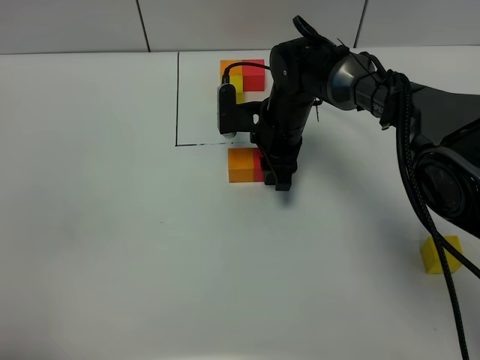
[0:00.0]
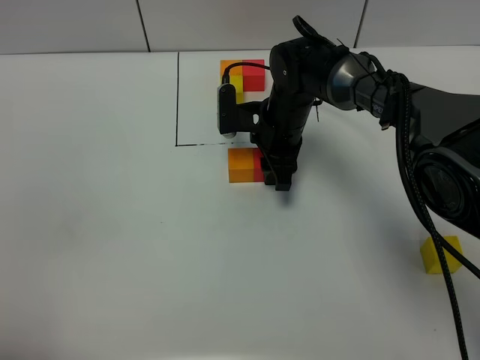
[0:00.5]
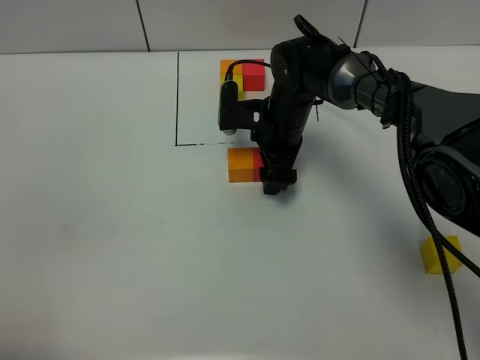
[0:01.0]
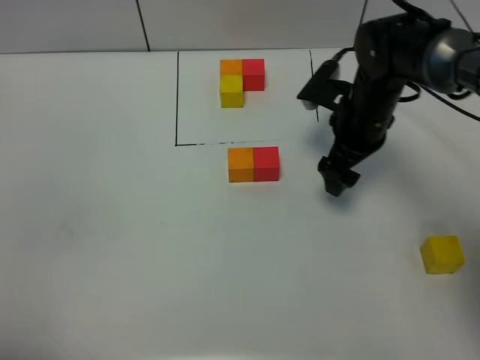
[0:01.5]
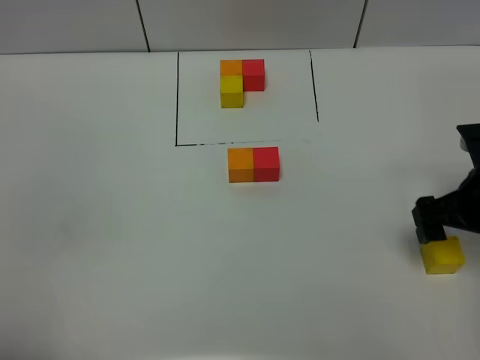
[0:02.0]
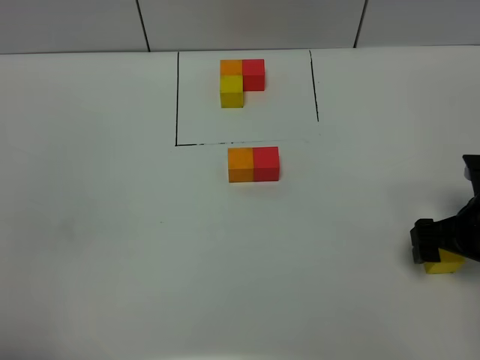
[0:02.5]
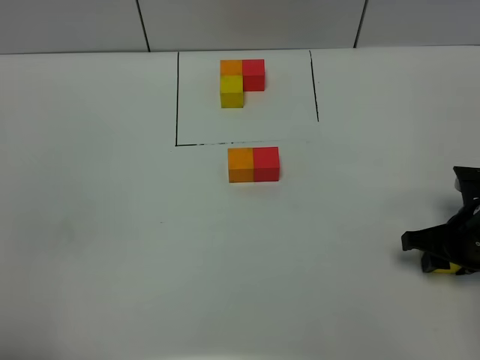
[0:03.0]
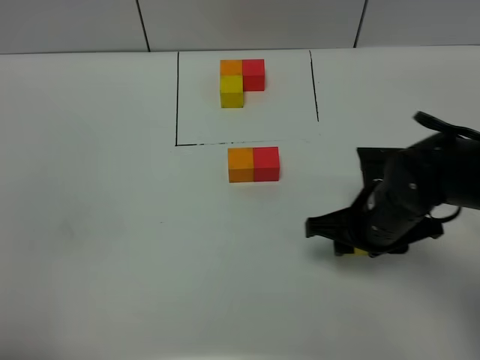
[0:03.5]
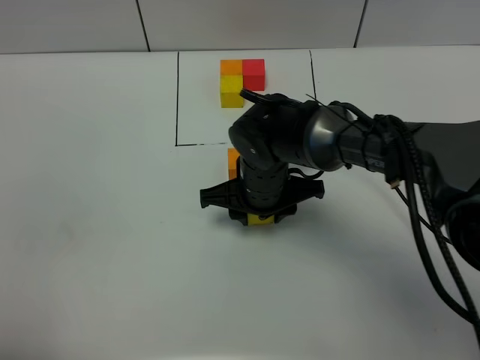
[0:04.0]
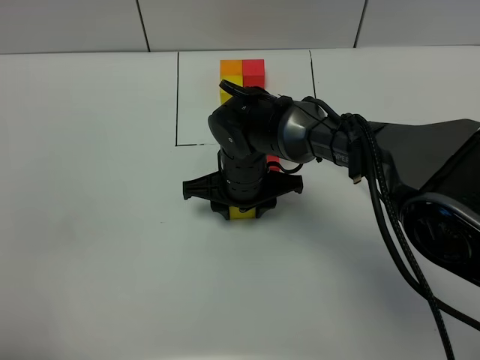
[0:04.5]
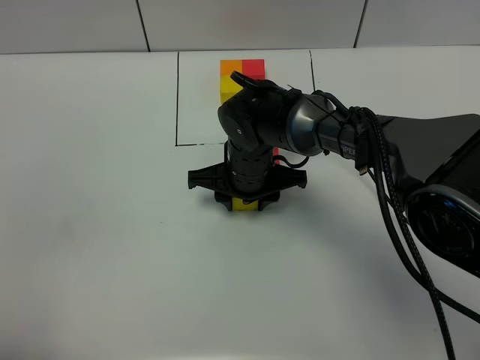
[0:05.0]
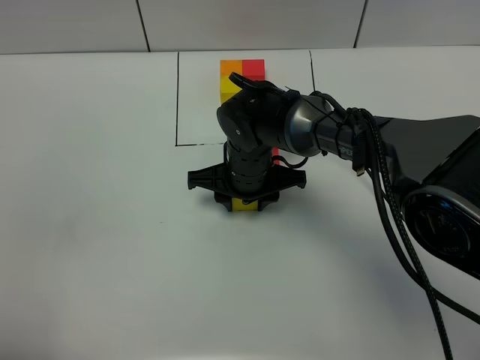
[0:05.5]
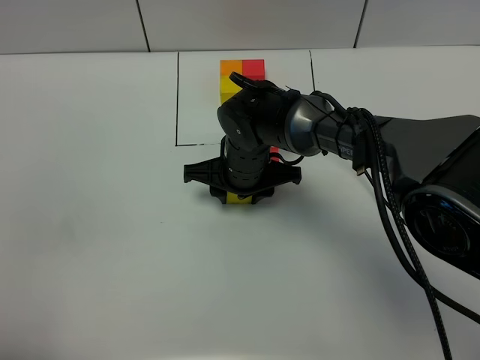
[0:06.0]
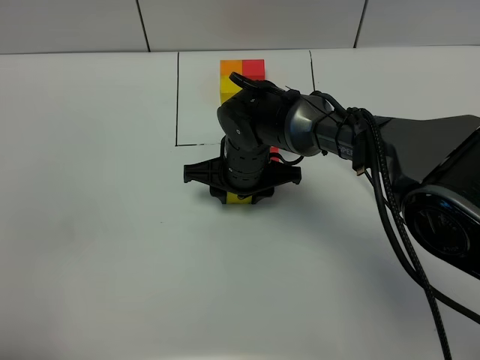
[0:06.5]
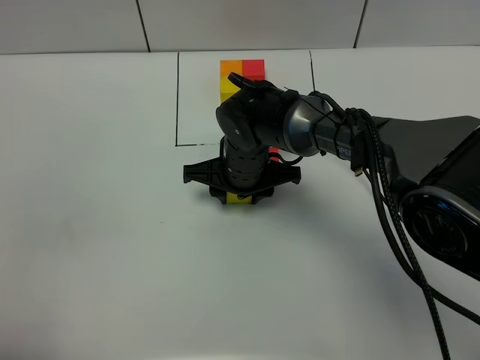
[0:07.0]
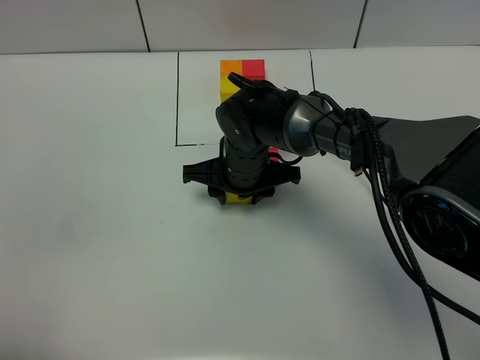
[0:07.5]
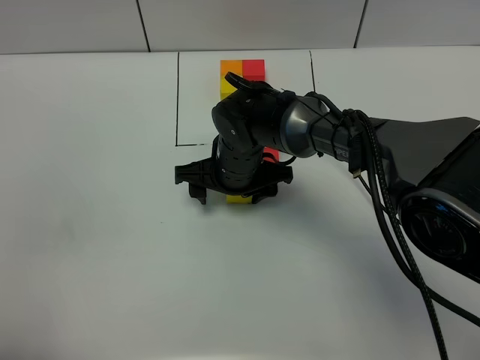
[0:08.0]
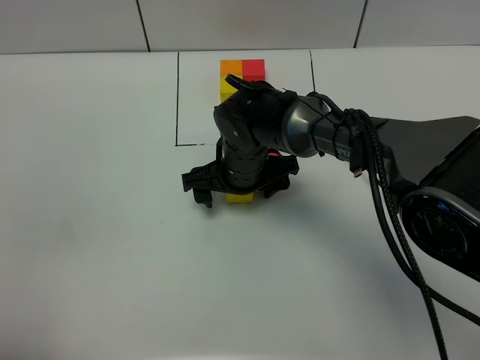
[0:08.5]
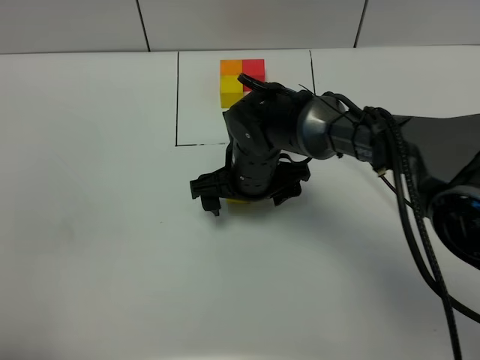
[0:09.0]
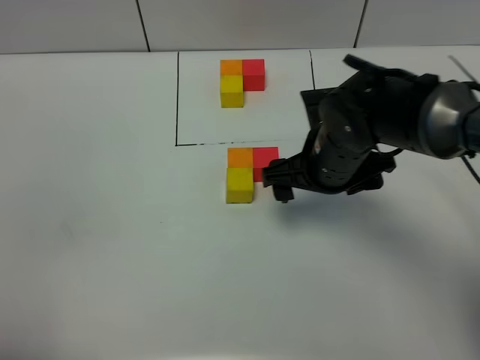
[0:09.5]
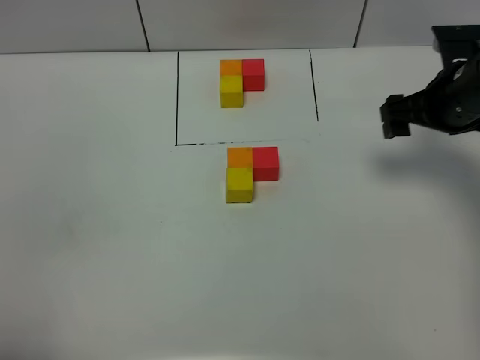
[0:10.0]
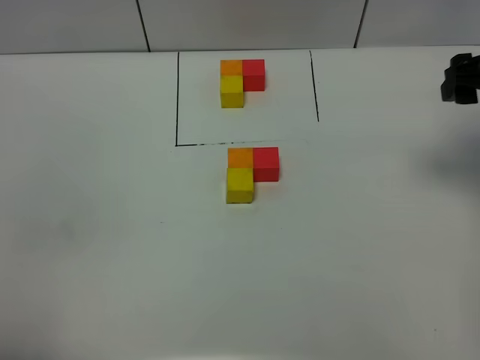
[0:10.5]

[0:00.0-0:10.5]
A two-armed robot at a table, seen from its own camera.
Task of the whole recording: According to the building block template in front, assemble the scattered blocks together.
Step, 0:01.5 to 0:07.5: Put the yellow build block on the behind of the orange build block.
0:00.0 to 0:02.0: The right gripper heads to the right and backward, covering some 30 cm, and opens up.
0:02.0 to 0:04.0: The right gripper shifts about 25 cm to the left, and closes.
0:04.0 to 0:06.5: The grippers stay close to where they were, moving slightly.
0:06.5 to 0:08.5: The right gripper opens.
0:08.5 to 0:10.5: The right gripper shifts approximately 35 cm to the right and upward.

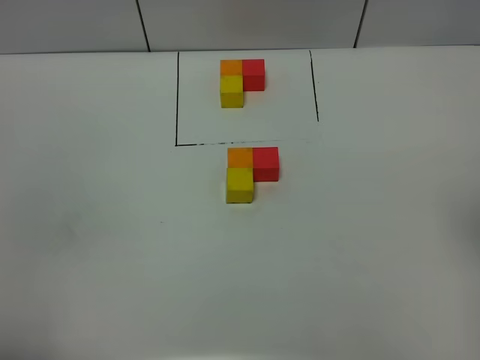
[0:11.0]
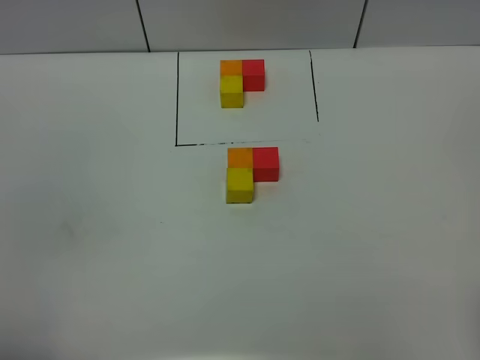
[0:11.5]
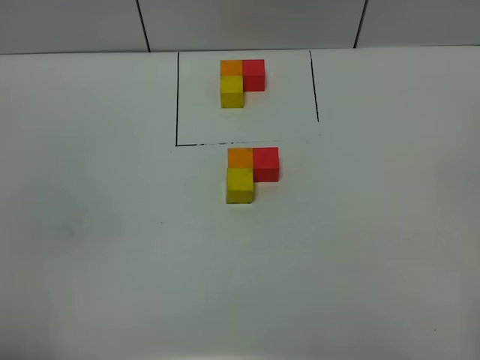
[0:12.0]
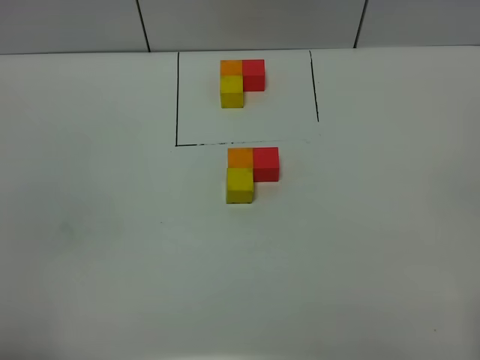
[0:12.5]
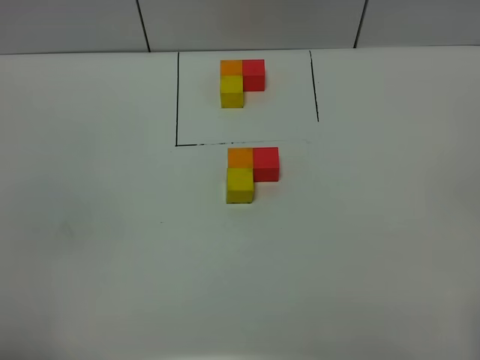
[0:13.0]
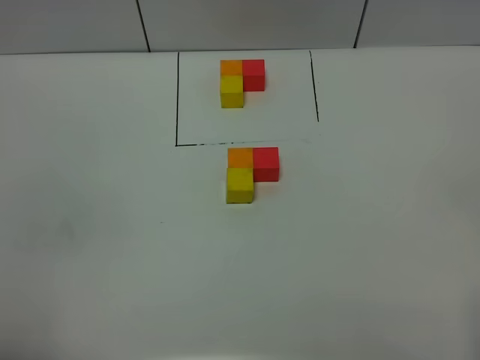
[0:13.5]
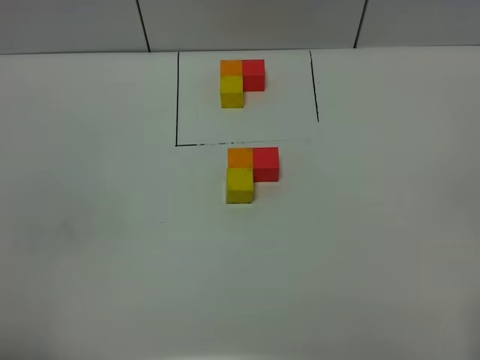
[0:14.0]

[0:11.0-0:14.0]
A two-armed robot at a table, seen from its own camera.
Task of the whole recording: According to the building block template in front, assemble the scattered blocks together.
0:12.5 to 0:14.0: The two grippers keep their place.

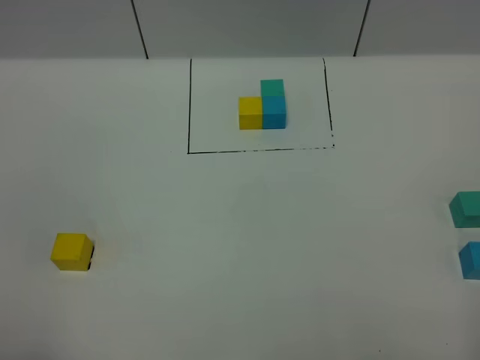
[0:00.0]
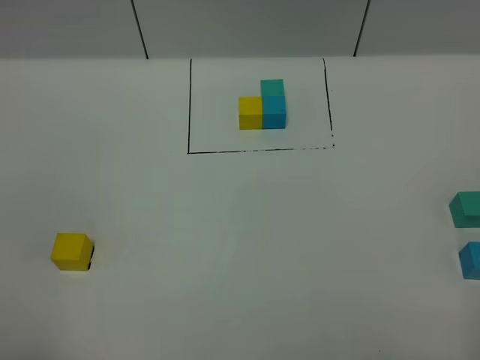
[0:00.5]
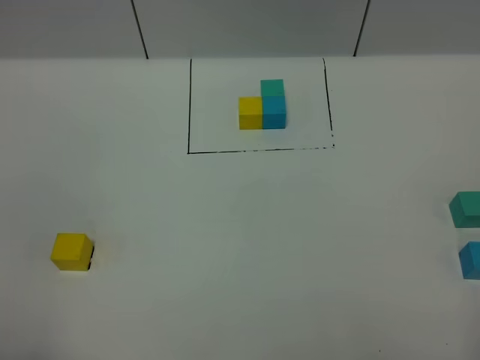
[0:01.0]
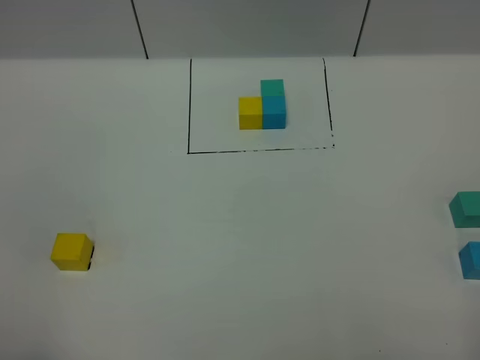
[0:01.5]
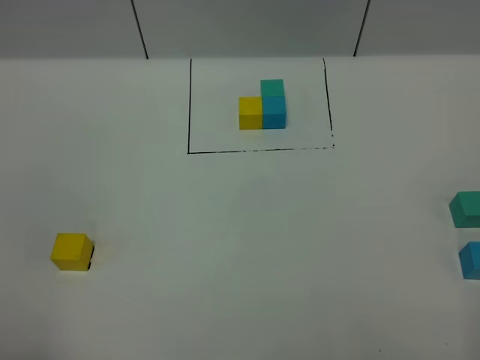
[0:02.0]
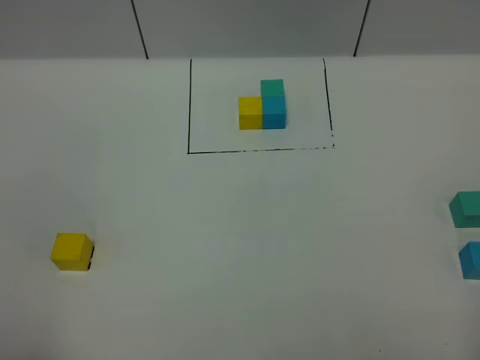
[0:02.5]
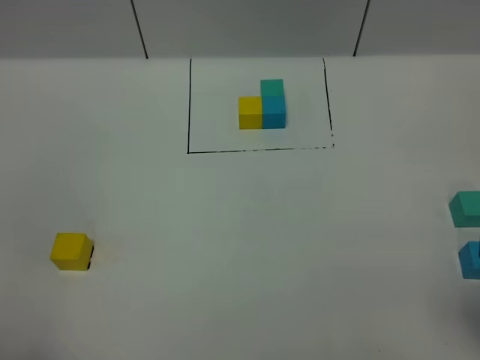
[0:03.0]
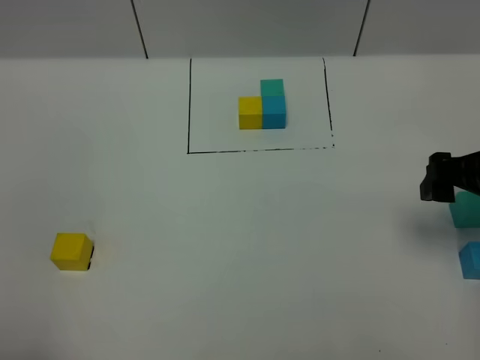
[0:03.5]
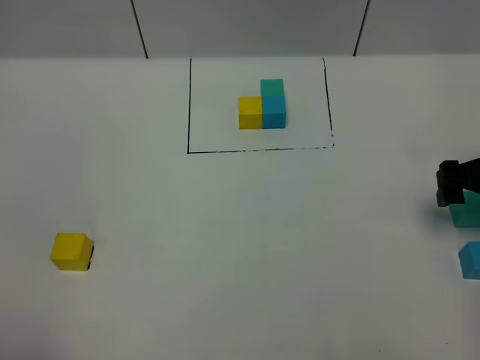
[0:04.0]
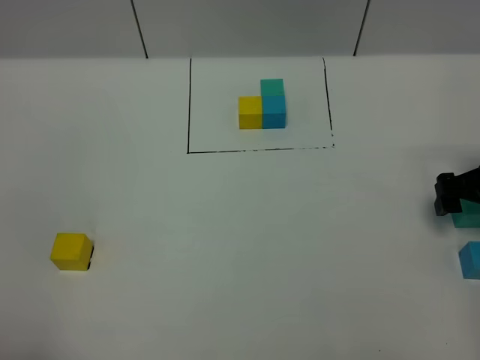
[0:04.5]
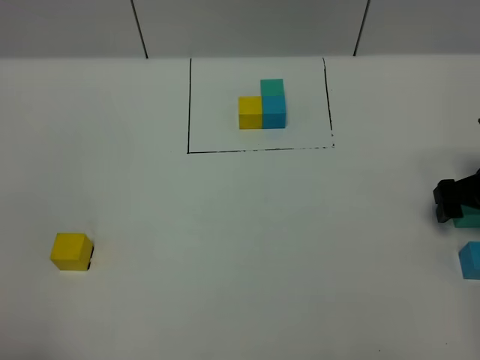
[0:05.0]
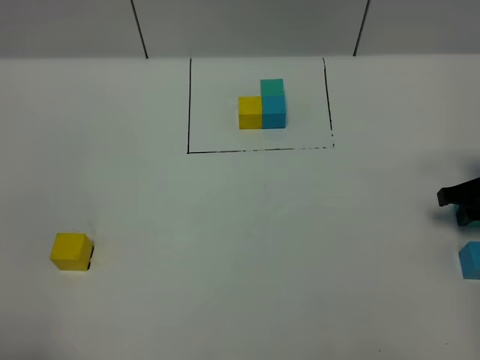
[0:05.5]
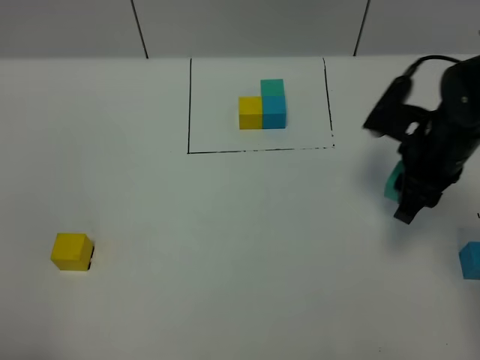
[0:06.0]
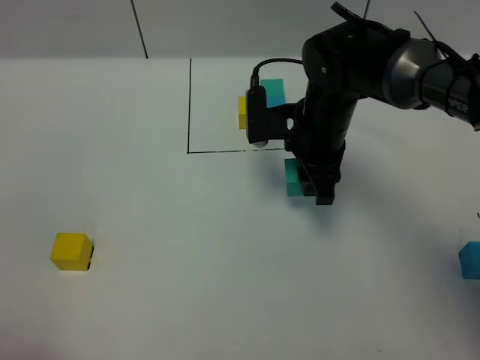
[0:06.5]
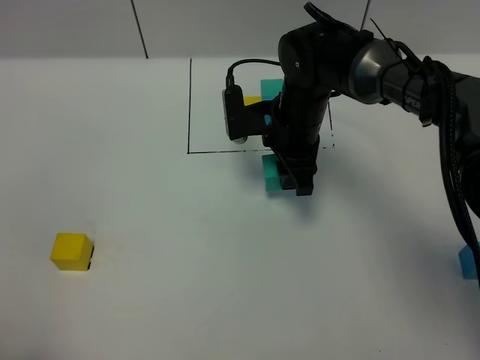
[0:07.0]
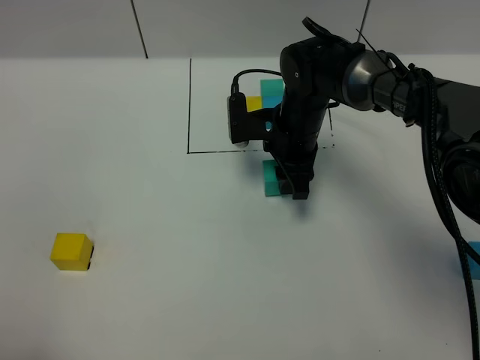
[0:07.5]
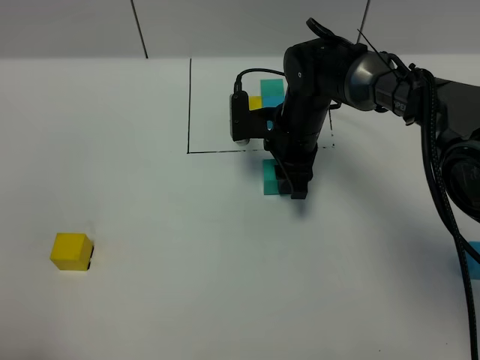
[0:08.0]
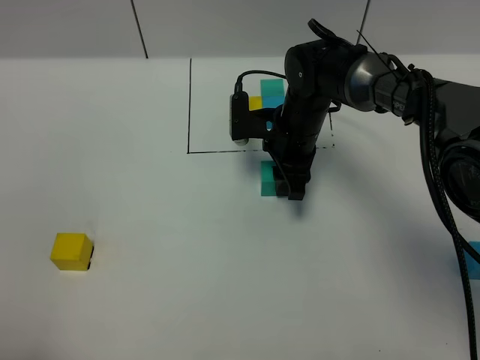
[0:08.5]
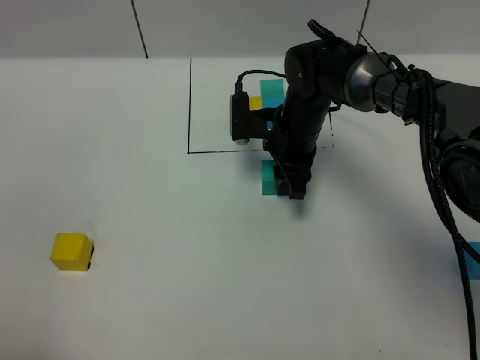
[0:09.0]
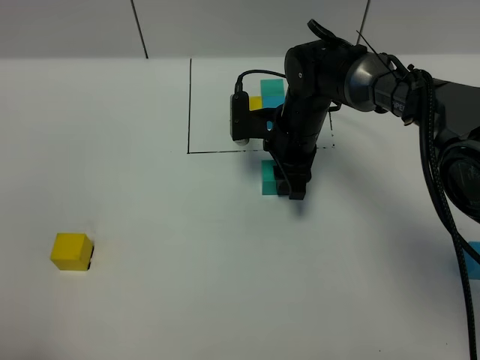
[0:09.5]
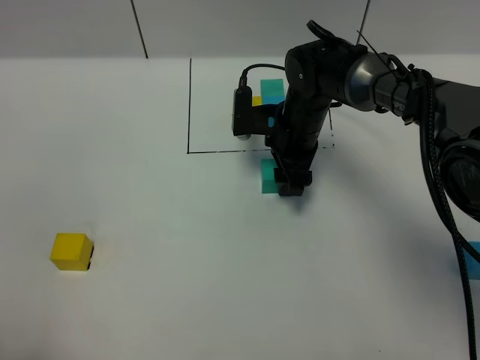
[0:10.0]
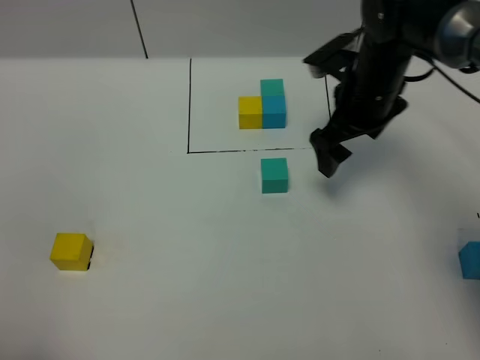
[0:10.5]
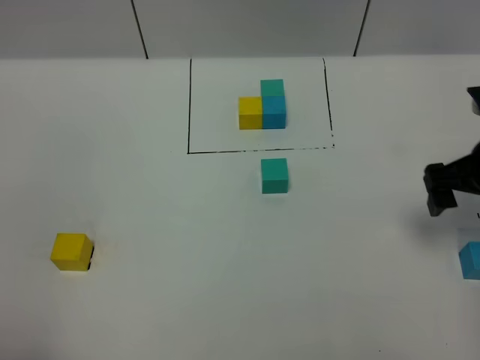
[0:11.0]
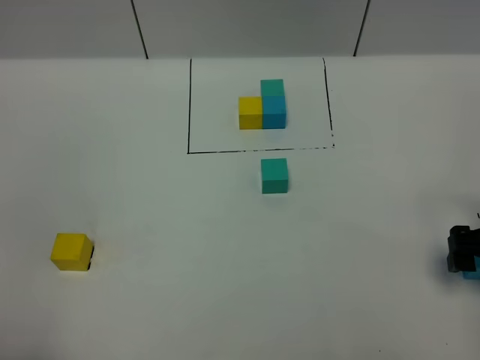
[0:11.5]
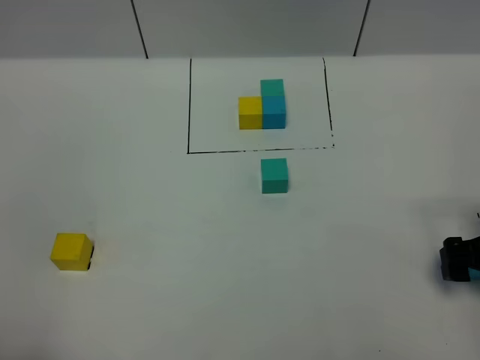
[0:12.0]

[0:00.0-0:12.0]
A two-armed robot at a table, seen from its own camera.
Task of the whole recording: According to the building block template in front, assemble the scattered blocks together.
Step, 0:00.0 to 0:09.0: Put the green build block in the center of the table.
0:00.0 to 0:02.0: Neither gripper changes place.
0:02.0 to 0:04.0: The right gripper moves forward, some 30 cm.
0:04.0 to 0:06.0: The right gripper shifts roughly 10 cm to the left, and closes up.
0:06.0 to 0:08.0: The right gripper moves to the left, forward and downward, approximately 20 cm.
0:08.0 to 0:10.0: The right gripper opens up.
0:10.0 to 0:12.0: The right gripper goes about 30 cm to the right and backward.
